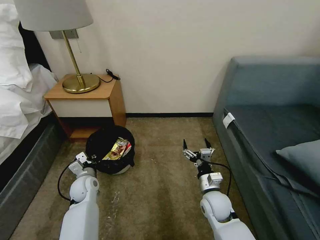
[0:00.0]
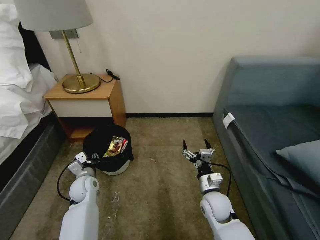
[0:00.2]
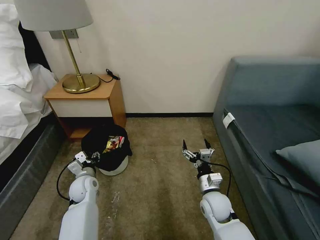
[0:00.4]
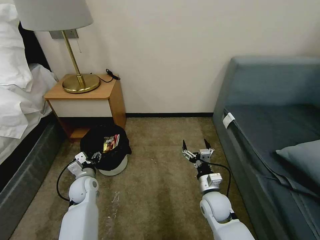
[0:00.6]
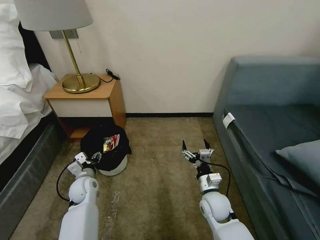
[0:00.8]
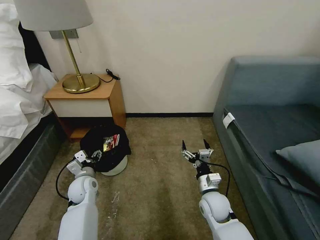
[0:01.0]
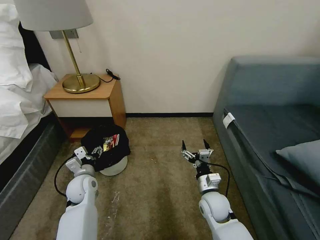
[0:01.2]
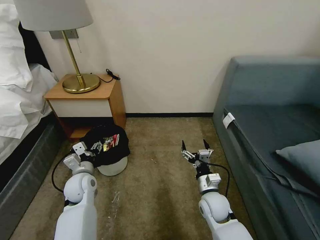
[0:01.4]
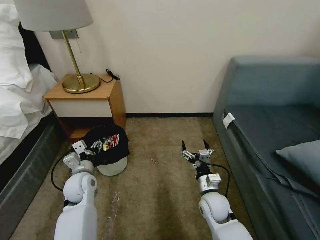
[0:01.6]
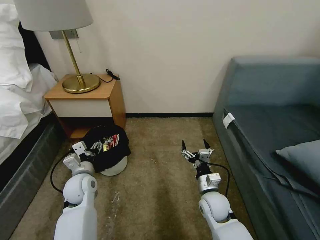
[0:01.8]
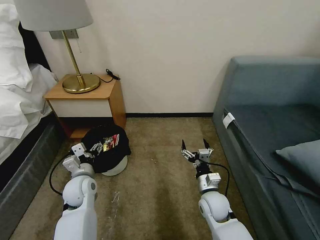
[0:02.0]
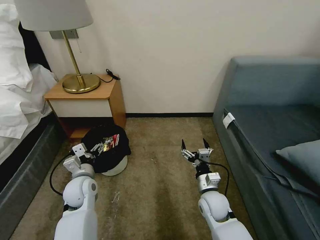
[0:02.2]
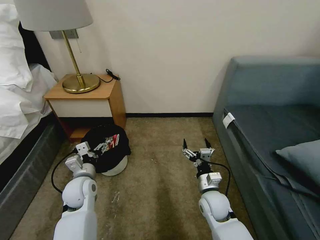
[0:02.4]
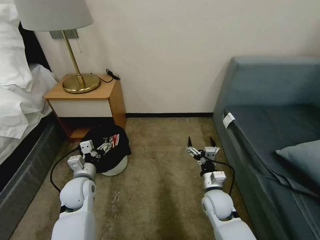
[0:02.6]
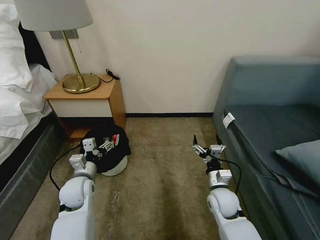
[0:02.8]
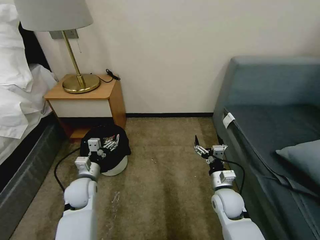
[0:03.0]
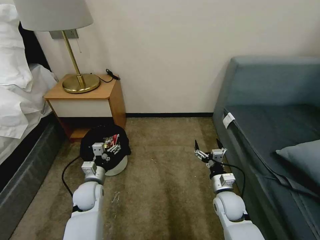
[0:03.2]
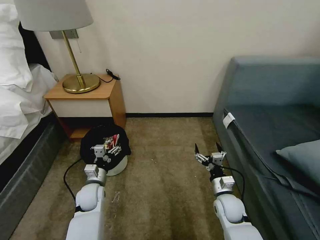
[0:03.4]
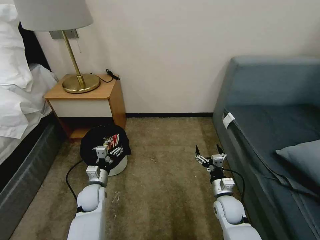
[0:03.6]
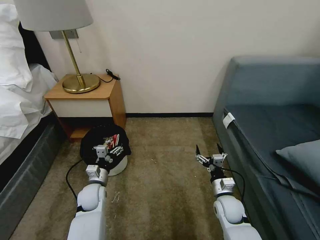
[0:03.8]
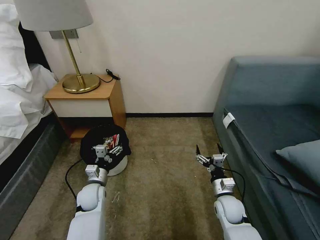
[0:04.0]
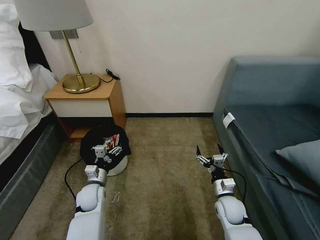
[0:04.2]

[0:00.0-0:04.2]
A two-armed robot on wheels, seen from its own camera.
Task of the whole recording: Pick up the trash bin, then pick up the garbage on the floor and place it into the trash bin.
0:00.0 to 0:01.4: The left gripper shifts about 5 cm upward, and opens.
0:02.8 to 0:04.2: The right gripper goes about 5 cm downward. The left gripper moves downward, approximately 10 cm.

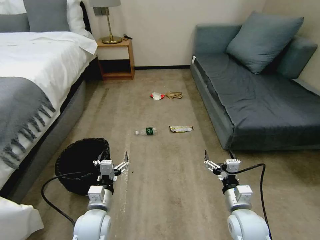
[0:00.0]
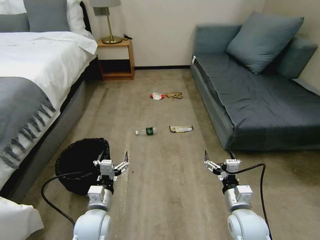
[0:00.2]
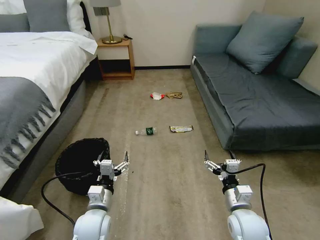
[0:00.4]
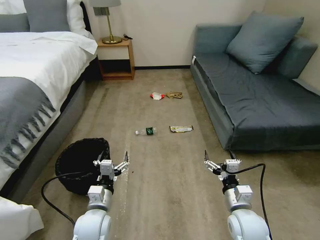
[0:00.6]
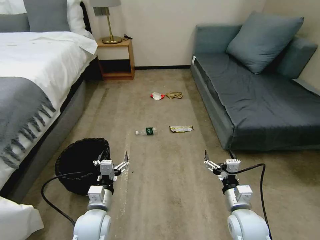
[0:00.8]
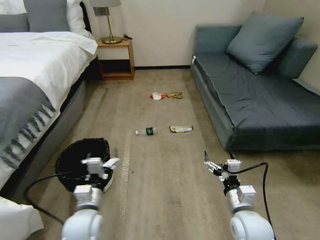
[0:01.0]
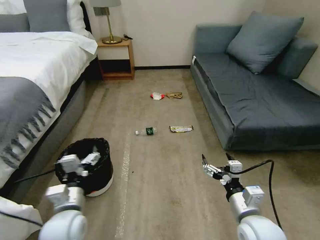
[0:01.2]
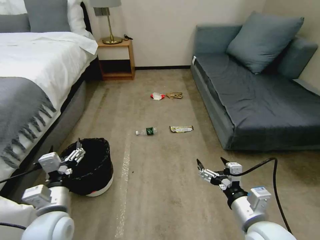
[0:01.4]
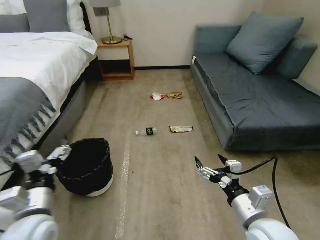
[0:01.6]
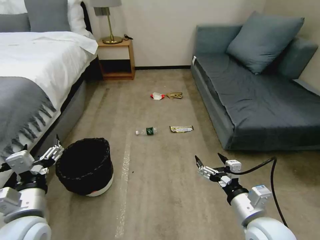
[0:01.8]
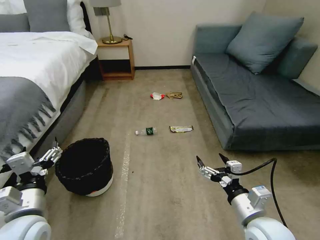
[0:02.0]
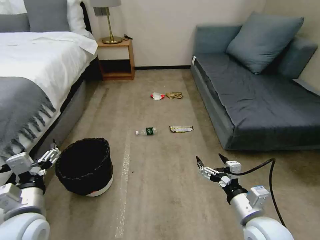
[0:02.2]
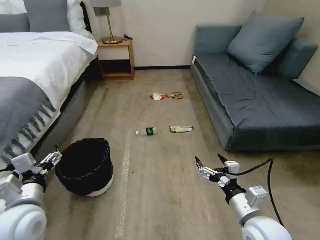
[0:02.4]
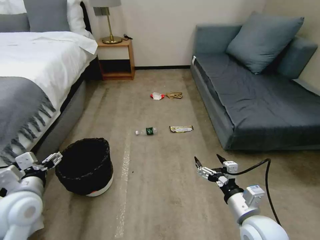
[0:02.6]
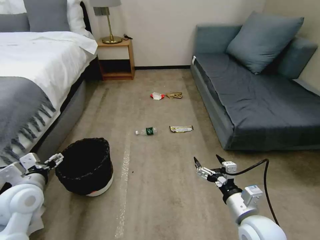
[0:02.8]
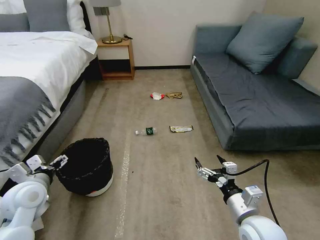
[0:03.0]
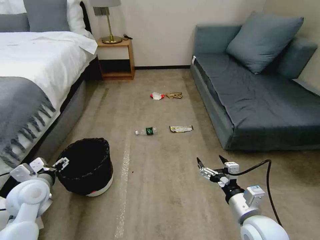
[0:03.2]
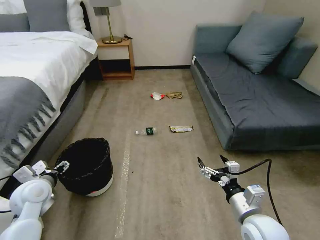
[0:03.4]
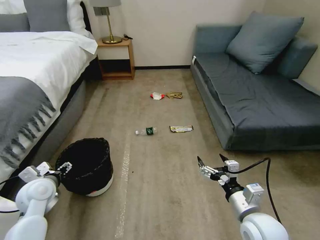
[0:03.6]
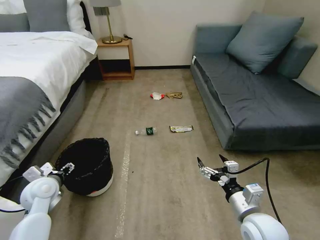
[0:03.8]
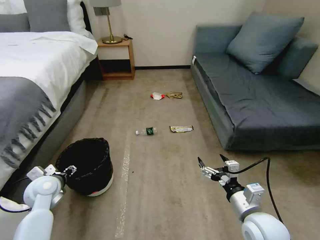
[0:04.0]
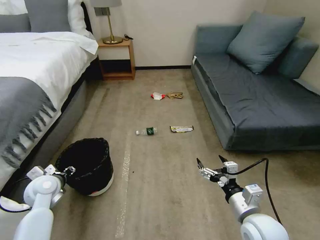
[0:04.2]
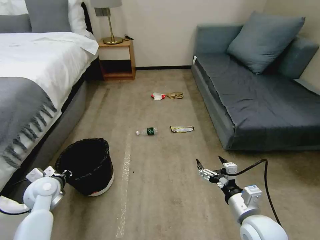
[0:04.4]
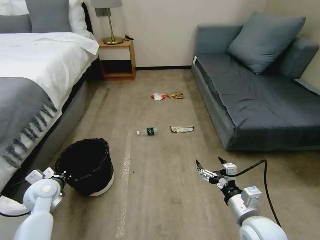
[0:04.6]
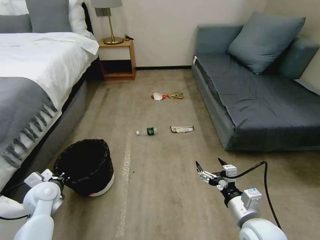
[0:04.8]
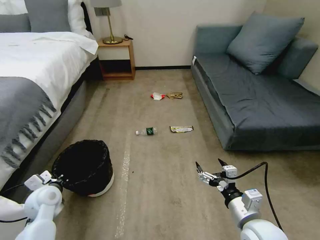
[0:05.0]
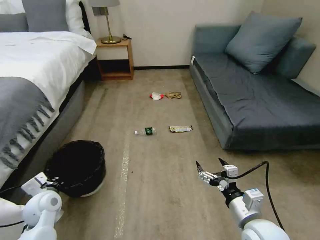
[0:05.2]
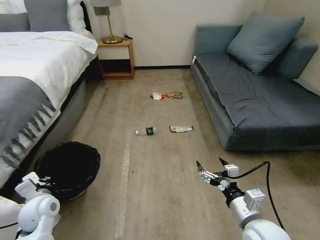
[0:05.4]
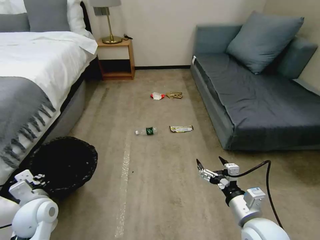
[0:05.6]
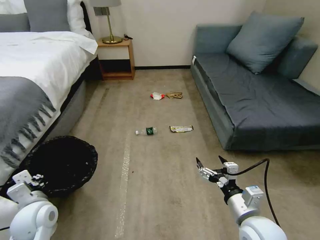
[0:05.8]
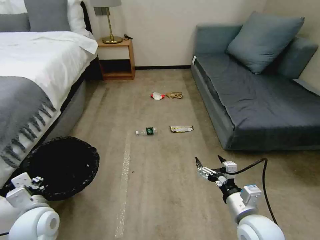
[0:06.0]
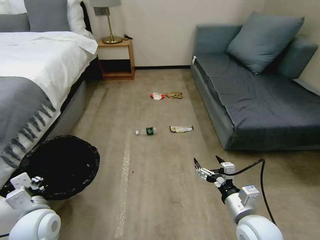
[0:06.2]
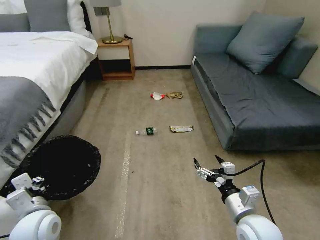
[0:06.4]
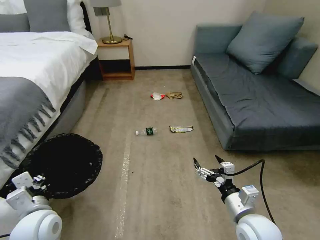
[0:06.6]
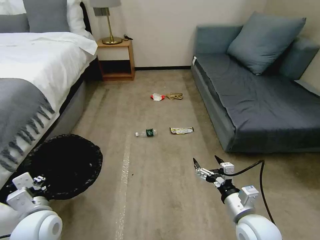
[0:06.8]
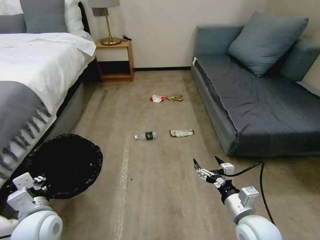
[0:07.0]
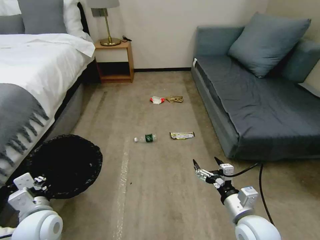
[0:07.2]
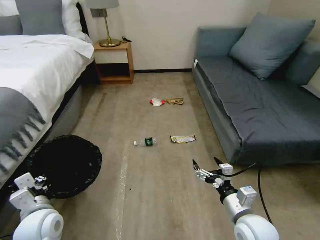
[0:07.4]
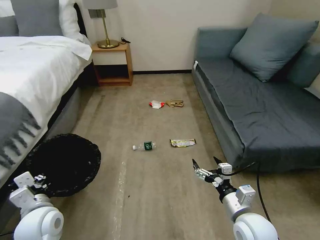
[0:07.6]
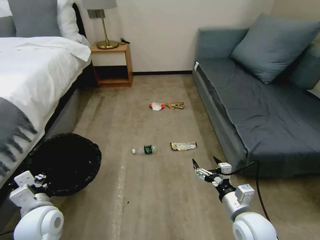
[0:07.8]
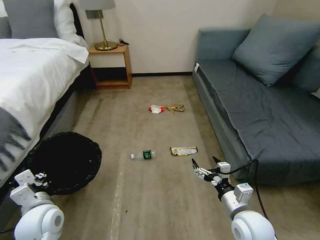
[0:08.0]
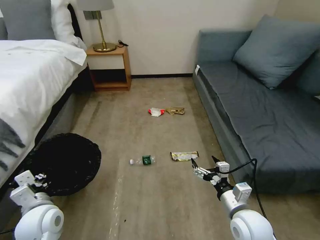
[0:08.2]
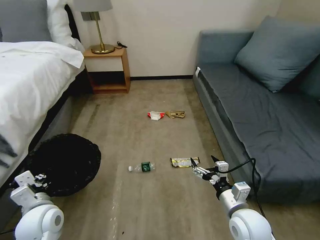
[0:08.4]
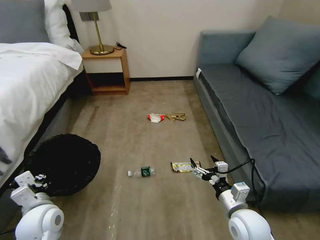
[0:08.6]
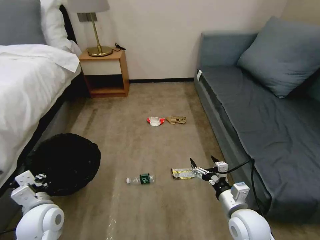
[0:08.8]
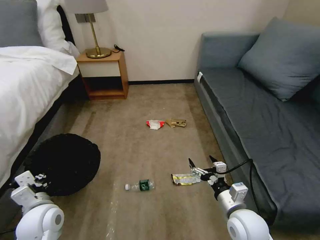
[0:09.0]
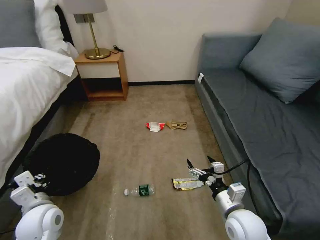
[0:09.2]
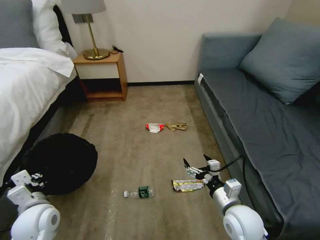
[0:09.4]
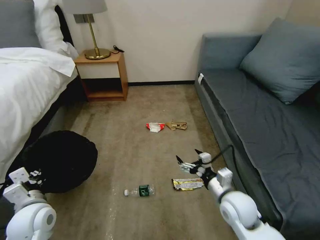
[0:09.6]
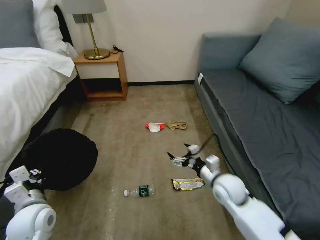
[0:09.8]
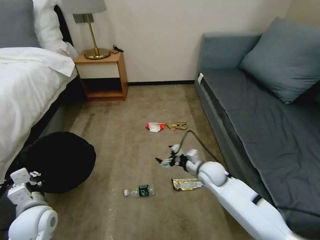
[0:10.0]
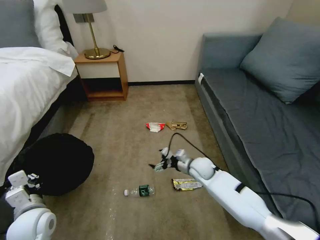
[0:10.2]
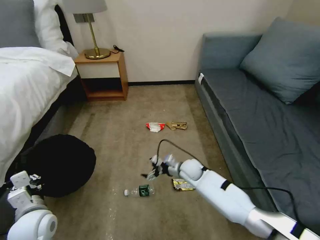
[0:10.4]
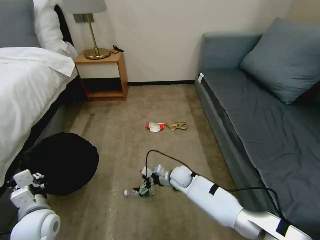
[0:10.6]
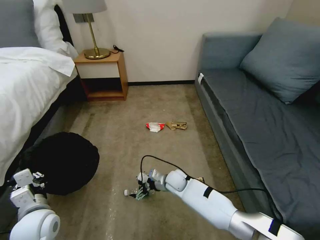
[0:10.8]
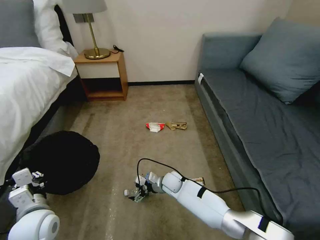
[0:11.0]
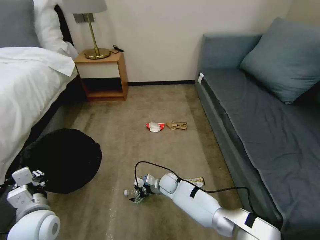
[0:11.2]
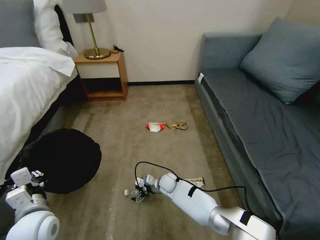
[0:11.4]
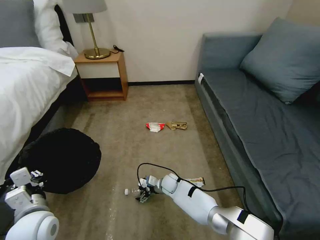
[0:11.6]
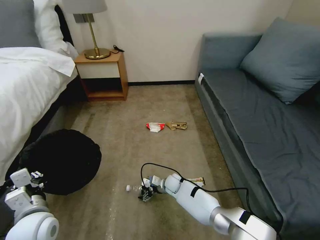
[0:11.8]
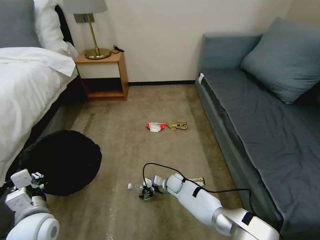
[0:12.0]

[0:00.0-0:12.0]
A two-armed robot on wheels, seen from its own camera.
Task of the whole recording: Pick up the trash bin, then pick up the garbage on the floor and place it into the trash bin.
0:01.6 to 0:03.0: The left gripper travels forward and to the left by about 15 cm.
0:03.0 to 0:04.4: The left gripper travels downward by some 5 cm, and closes up.
0:04.4 to 0:06.0: The left gripper moves backward and to the right, approximately 10 cm.
0:09.0 to 0:10.4: The right gripper moves forward, to the left and downward, about 25 cm.
0:10.4 to 0:12.0: The right gripper is displaced downward by approximately 10 cm.

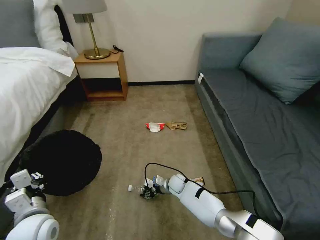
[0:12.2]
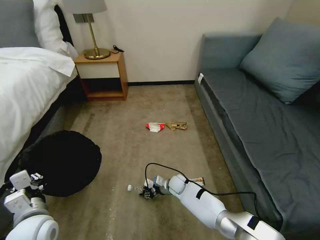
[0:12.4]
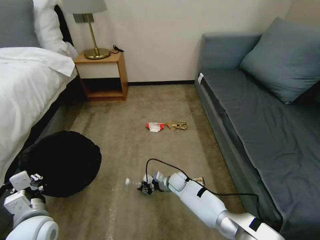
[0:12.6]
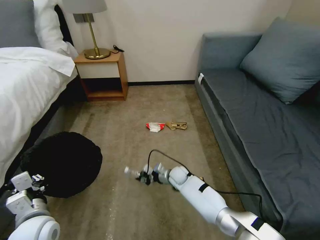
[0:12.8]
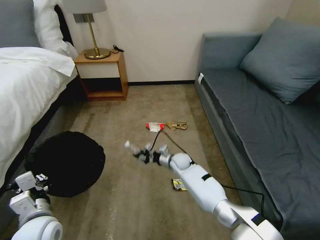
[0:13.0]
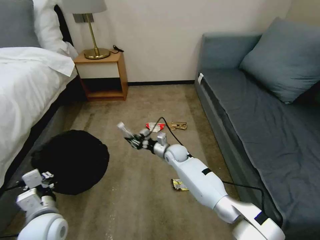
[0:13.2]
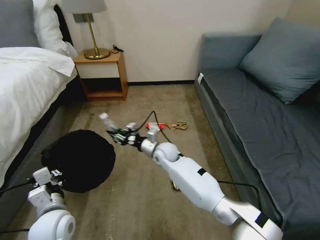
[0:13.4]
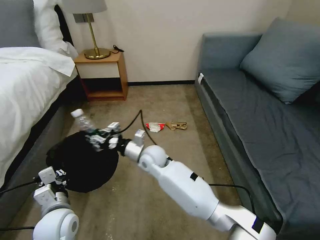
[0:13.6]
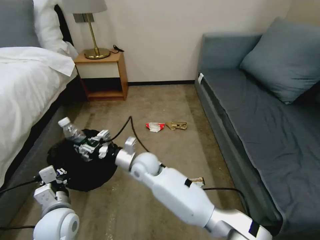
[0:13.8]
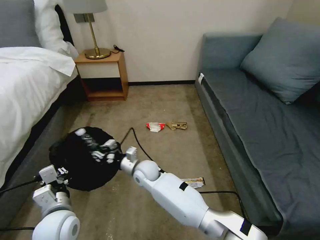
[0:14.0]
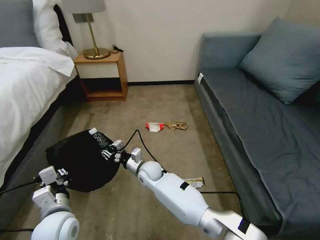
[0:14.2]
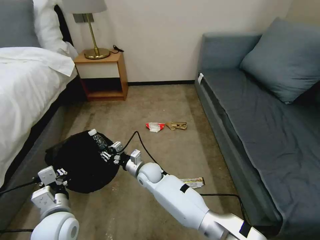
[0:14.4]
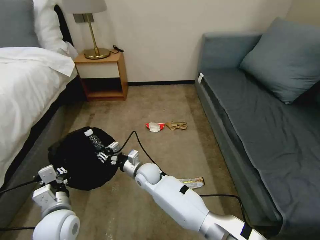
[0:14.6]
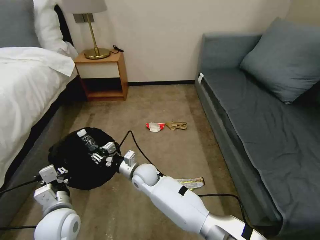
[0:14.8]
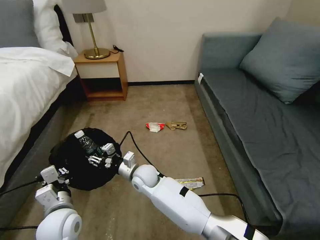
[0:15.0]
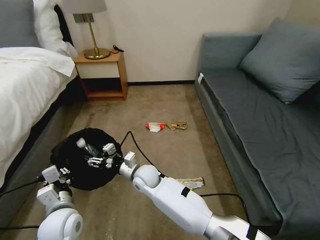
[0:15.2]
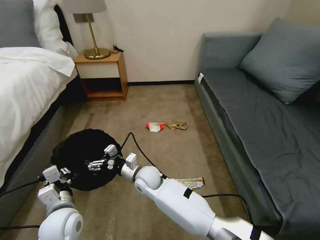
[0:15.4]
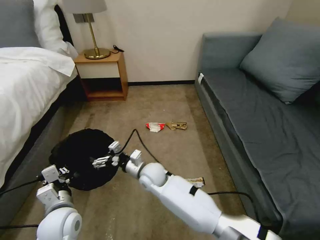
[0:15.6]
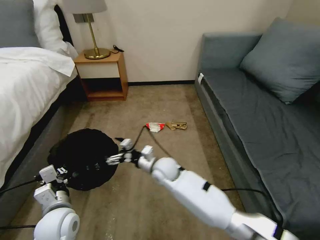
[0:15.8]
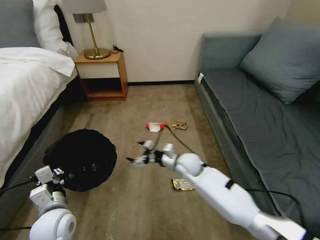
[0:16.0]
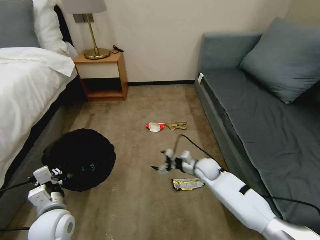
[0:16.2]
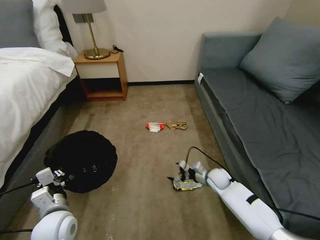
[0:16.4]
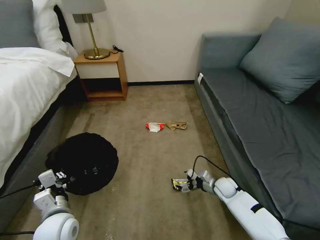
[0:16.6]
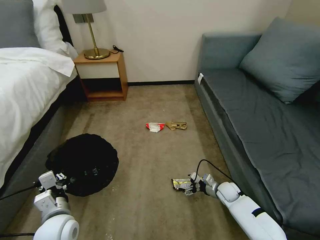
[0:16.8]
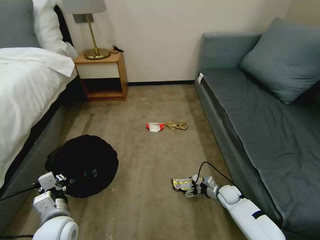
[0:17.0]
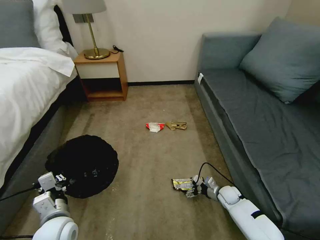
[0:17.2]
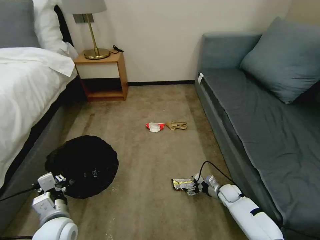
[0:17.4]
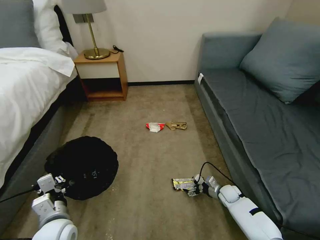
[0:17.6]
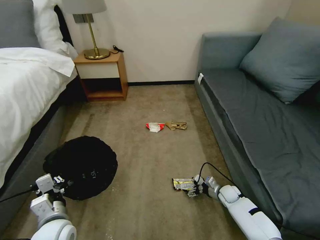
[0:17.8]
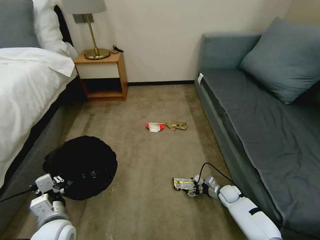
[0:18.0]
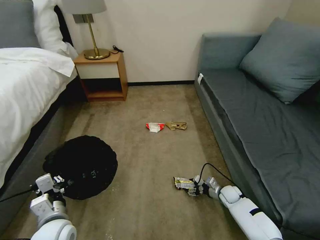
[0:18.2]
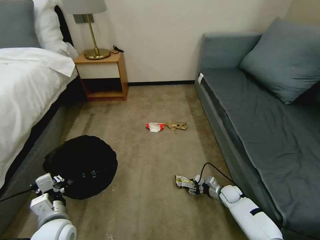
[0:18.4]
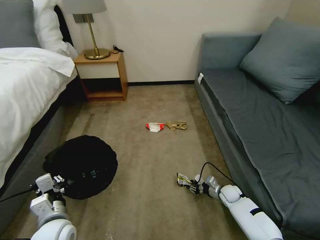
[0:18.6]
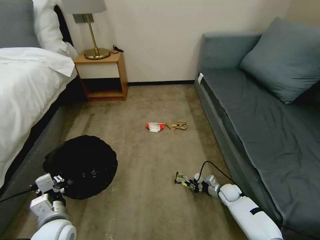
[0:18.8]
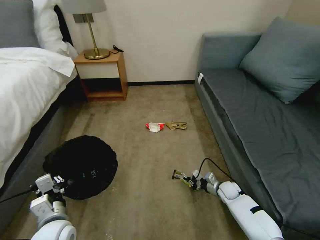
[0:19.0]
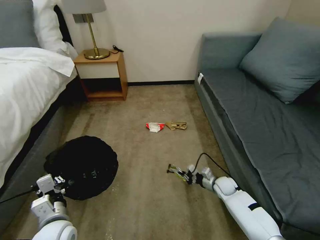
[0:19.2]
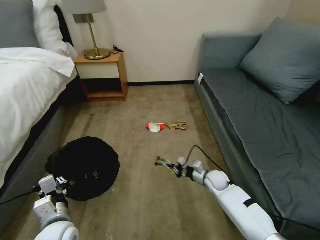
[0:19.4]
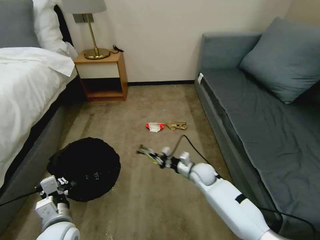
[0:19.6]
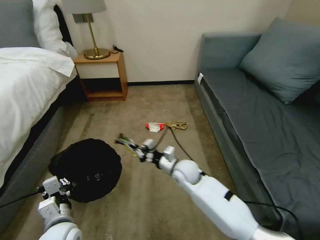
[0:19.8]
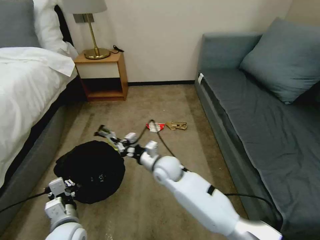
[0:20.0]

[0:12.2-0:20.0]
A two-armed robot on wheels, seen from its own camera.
Task of the whole recording: Pick up the trash bin, then pick up the garbage on the floor and place it into the trash bin.
0:12.2 to 0:13.8: The right gripper moves upward and to the left, approximately 30 cm; the left gripper changes place by about 5 cm.
0:13.8 to 0:15.4: The right gripper shifts approximately 5 cm downward, and opens.
0:15.4 to 0:16.8: The right gripper travels to the right and downward by some 40 cm.
0:16.8 to 0:18.4: The right gripper closes.
0:18.4 to 0:20.0: The right gripper goes approximately 40 cm to the left and upward, and closes.
